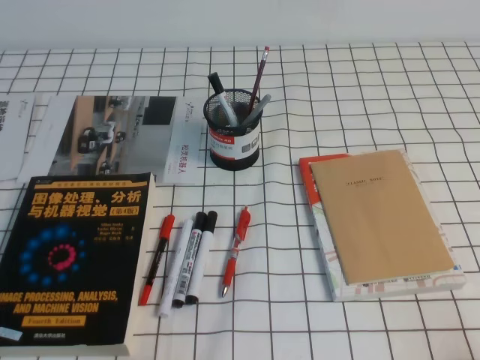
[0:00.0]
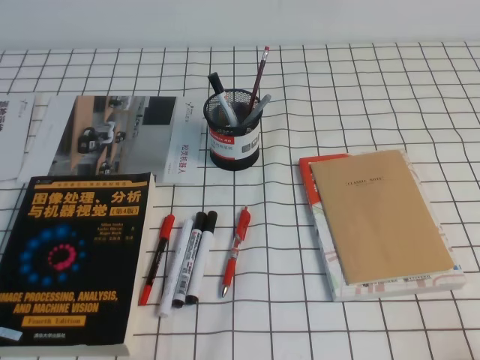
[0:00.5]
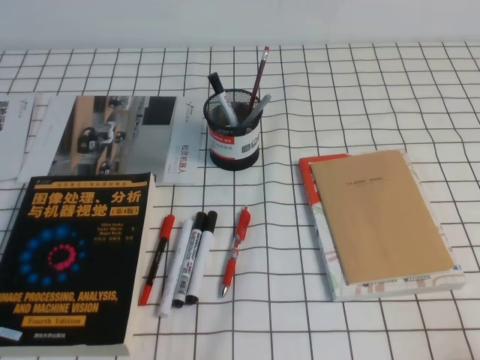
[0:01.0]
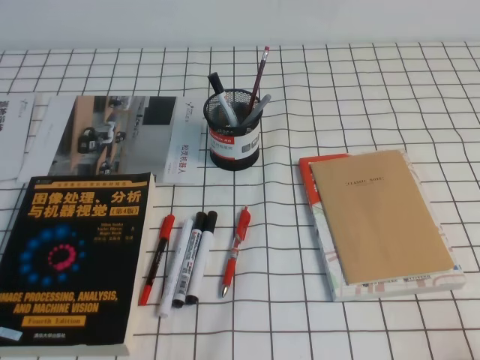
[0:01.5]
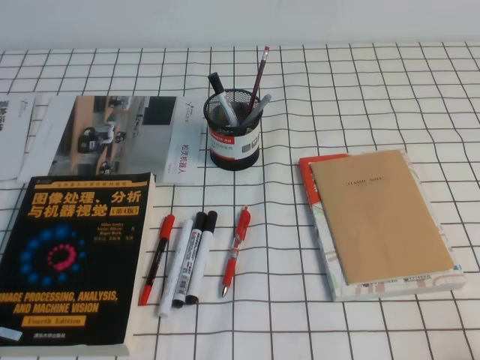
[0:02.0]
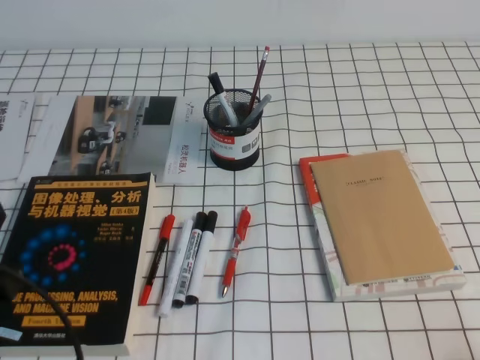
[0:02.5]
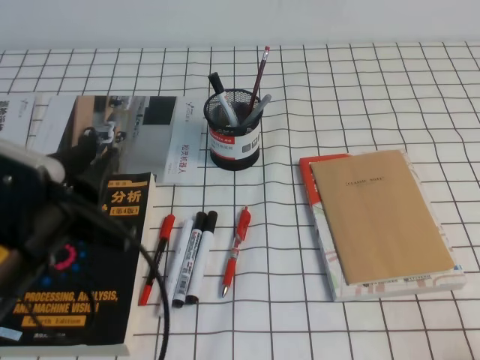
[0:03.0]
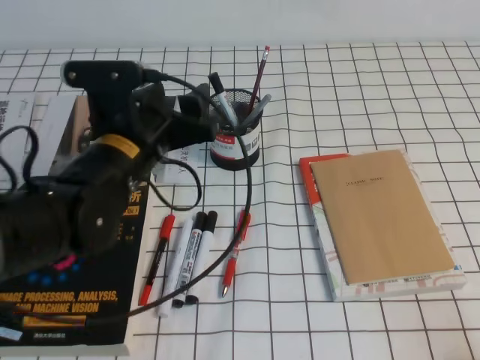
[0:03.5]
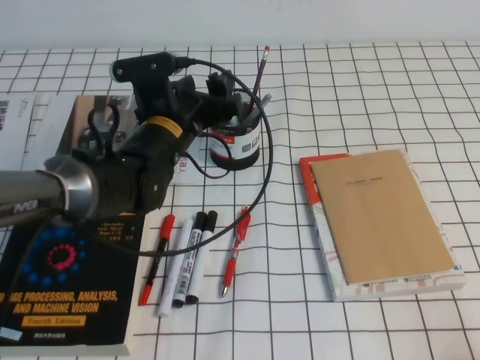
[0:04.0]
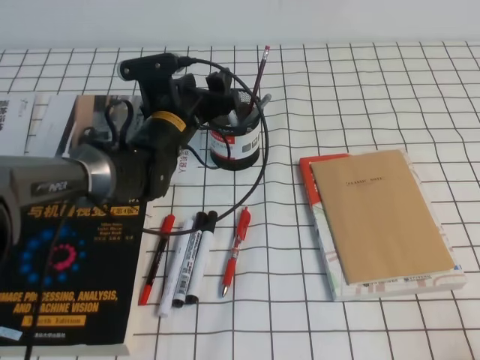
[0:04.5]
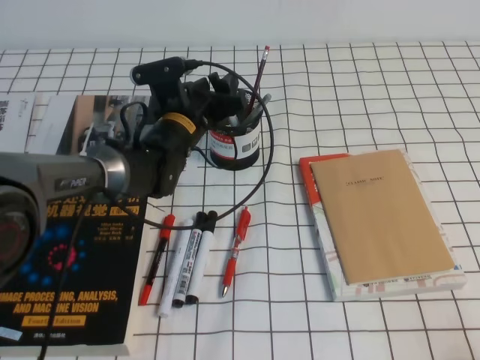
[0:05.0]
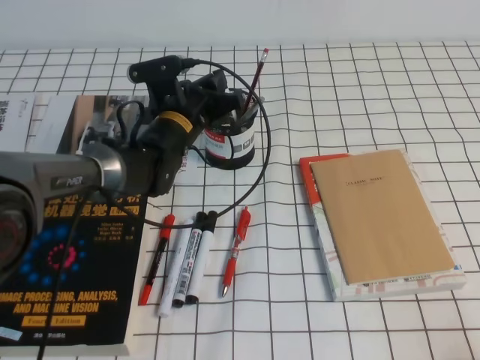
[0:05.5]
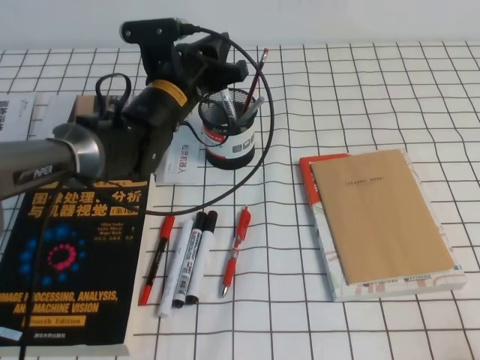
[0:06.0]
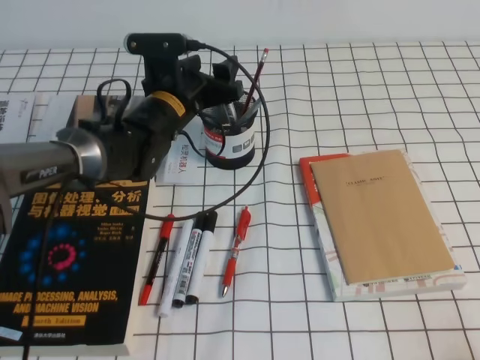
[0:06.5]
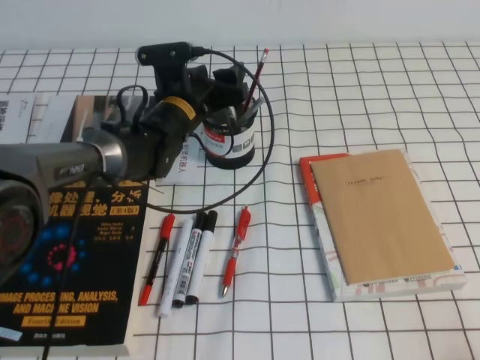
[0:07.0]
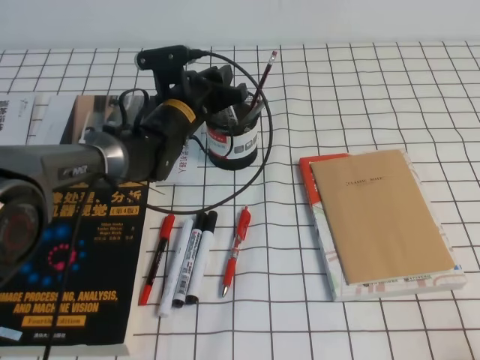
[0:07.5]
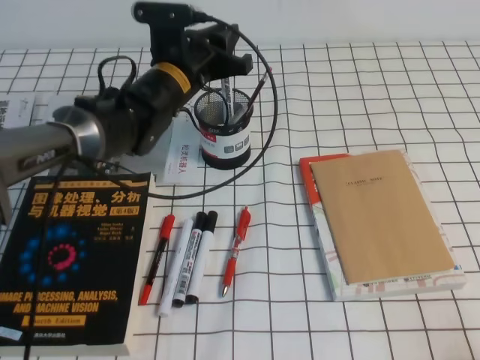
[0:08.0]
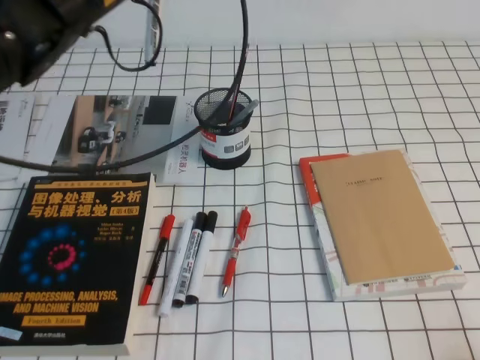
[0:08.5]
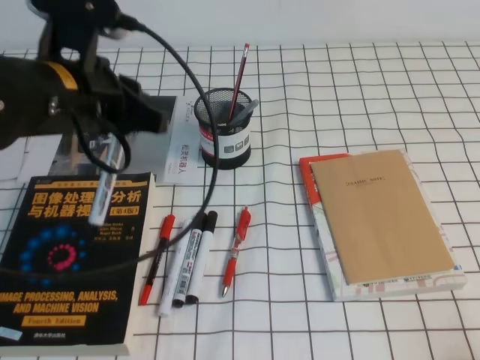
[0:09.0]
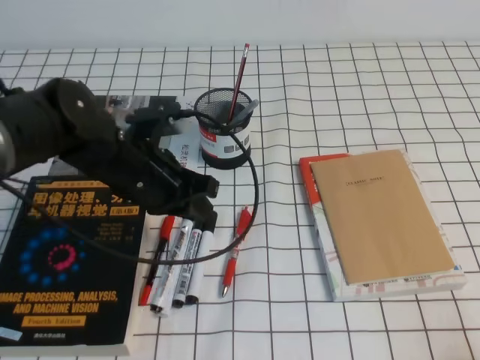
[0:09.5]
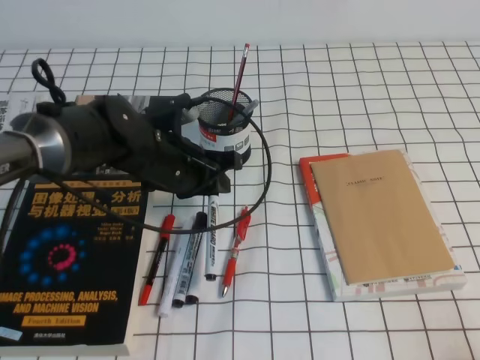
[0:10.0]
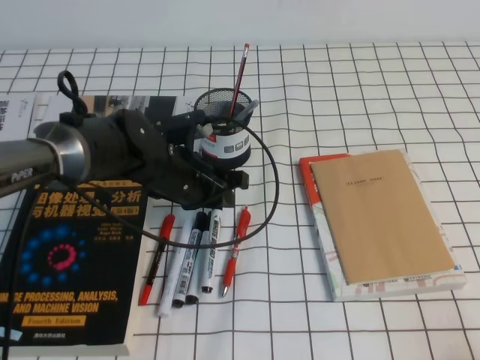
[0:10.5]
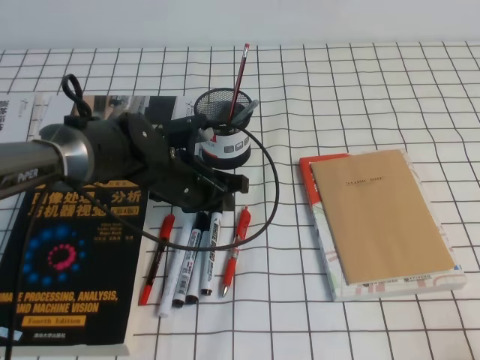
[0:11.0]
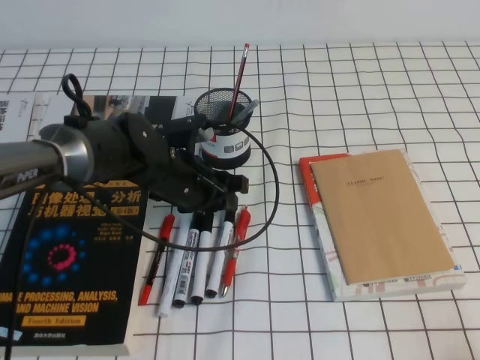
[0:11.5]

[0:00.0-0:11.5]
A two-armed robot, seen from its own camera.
0:02.0 to 0:04.0: The left gripper goes about 35 cm forward and to the right, and opens its fingers.
0:04.0 to 0:06.0: The left gripper is displaced forward by about 5 cm, and closes up.
0:06.0 to 0:07.5: The left gripper ends up about 5 cm from where it was, and opens, then closes once more.
0:07.5 to 0:09.5: The left gripper moves backward, roughly 15 cm, and travels upward and back again, approximately 20 cm each way.
0:09.5 to 0:11.5: The left gripper travels downward by about 5 cm.

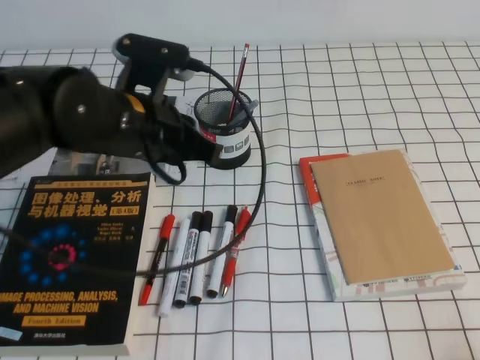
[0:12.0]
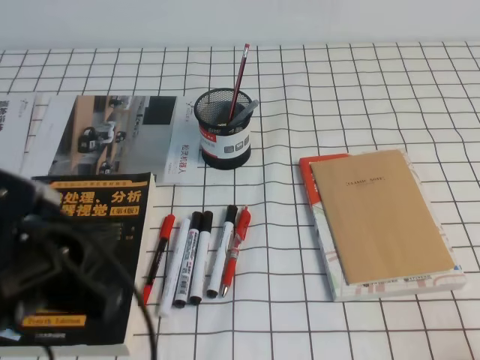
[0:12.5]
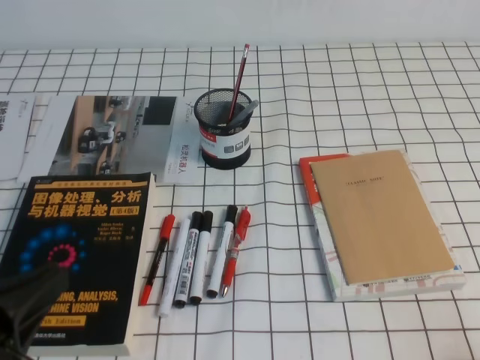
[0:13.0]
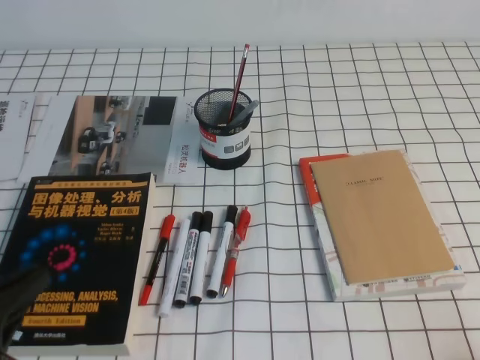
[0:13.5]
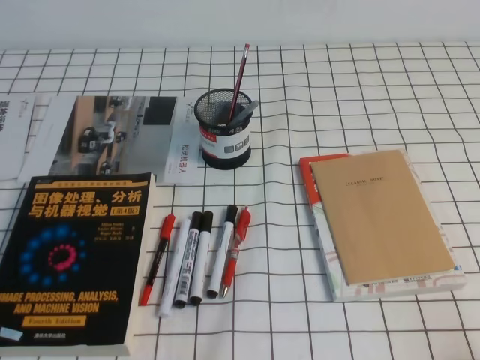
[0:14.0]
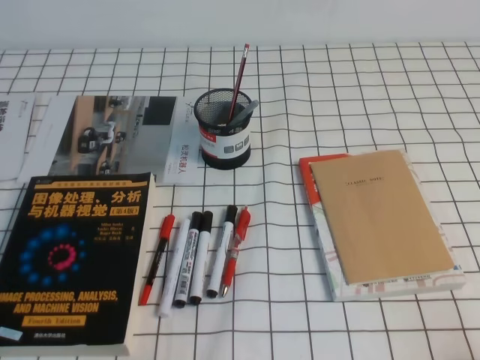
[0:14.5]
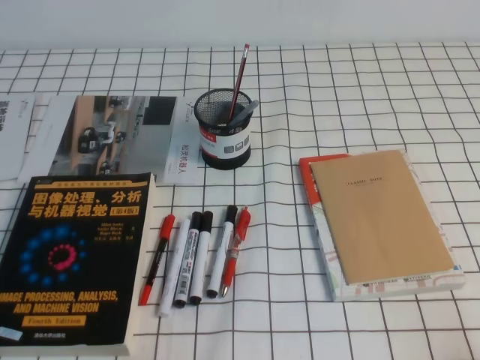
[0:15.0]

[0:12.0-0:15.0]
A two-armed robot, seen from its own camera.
Step, 0:12.0 to 0:15.0: Pick up the pen from the pen holder.
0:12.0 to 0:13.5: The left gripper is displaced backward and to the left by about 25 cm.

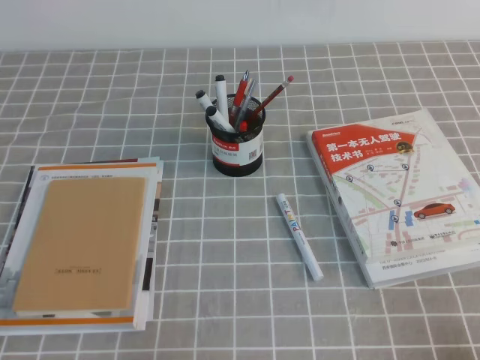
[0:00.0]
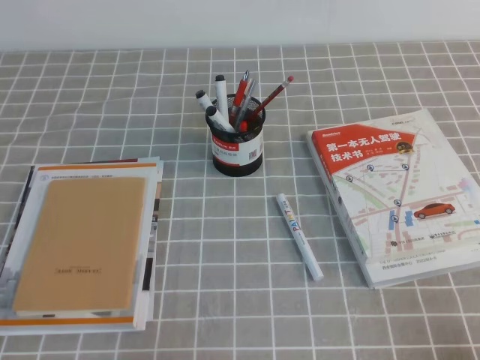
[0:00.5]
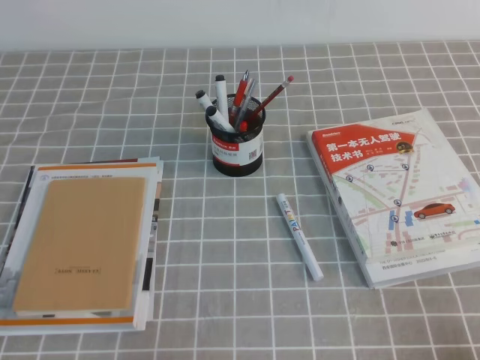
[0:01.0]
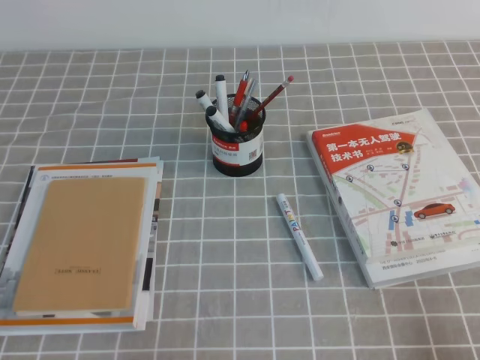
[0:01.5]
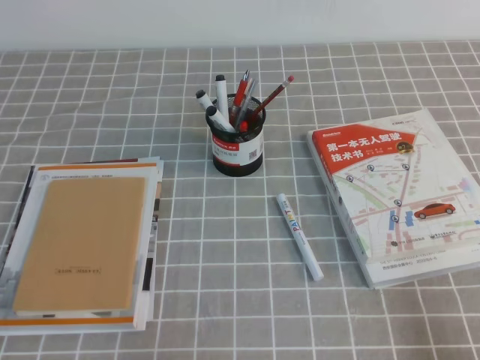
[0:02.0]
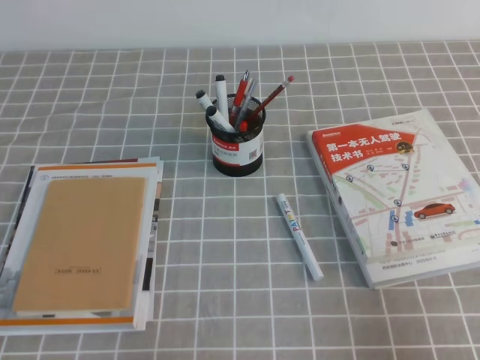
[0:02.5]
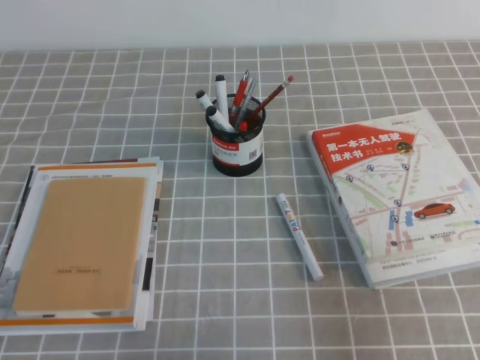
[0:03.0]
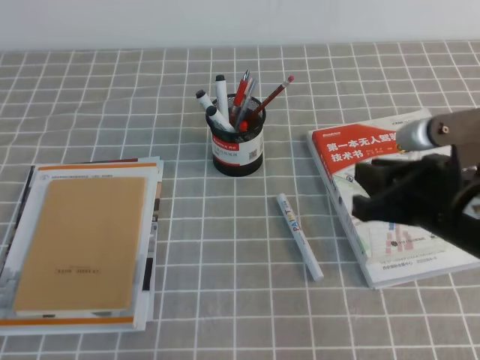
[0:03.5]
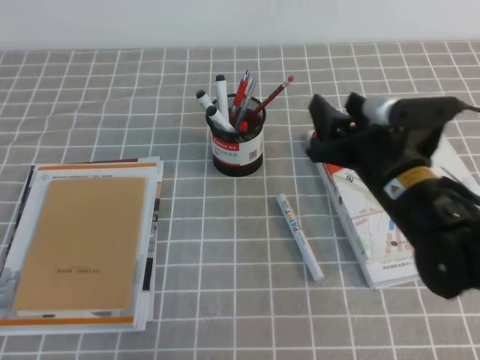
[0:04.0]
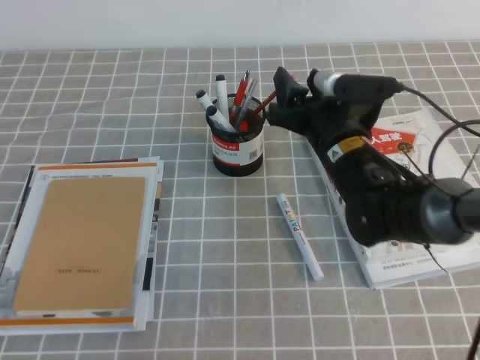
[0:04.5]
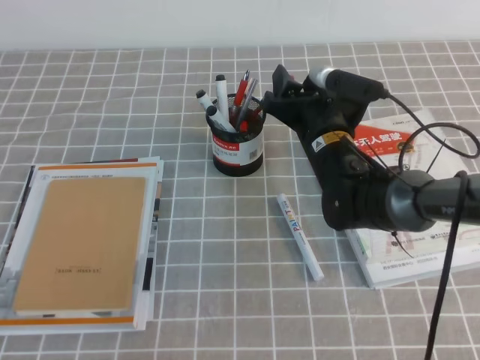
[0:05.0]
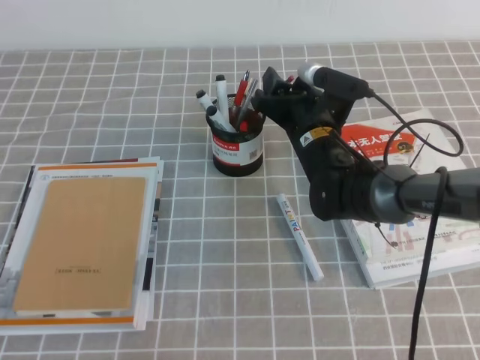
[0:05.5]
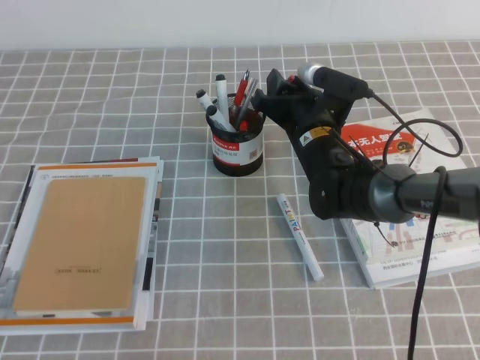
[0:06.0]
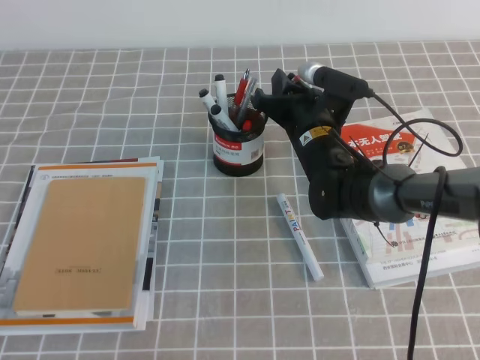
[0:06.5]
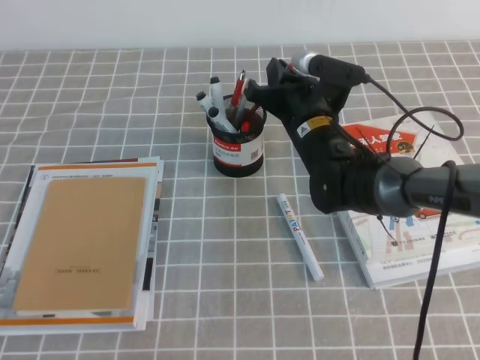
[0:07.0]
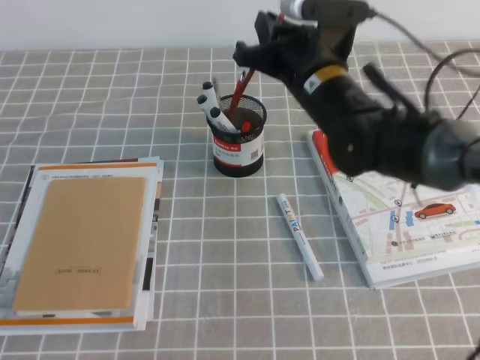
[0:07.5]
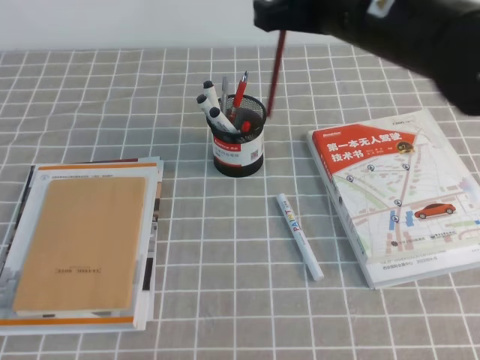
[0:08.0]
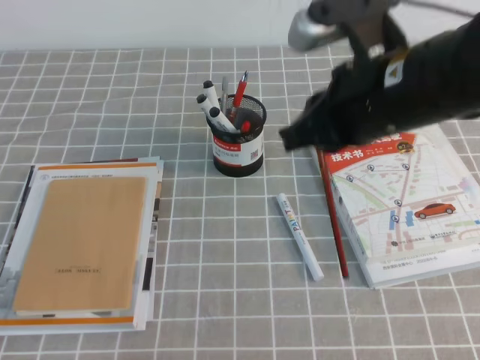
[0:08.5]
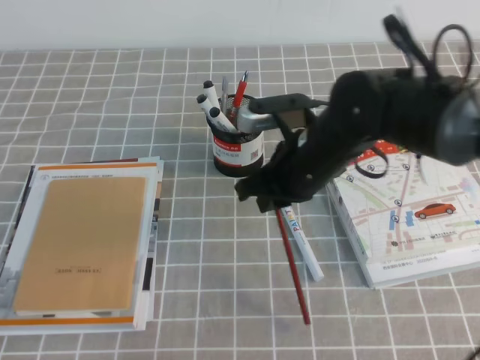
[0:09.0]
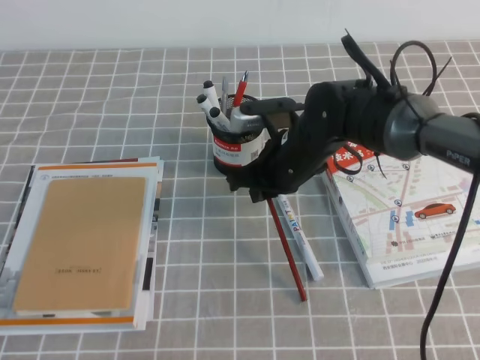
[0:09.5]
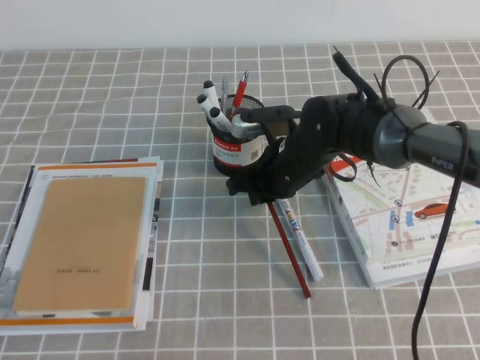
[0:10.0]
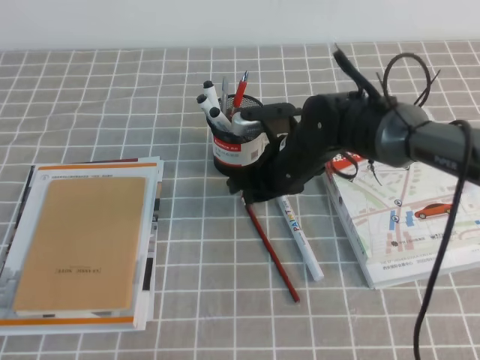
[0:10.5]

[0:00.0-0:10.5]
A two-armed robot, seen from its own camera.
0:02.0 to 0:04.0: The right gripper heads forward and to the left, covering roughly 30 cm, and opens up.
0:04.0 to 0:06.5: The right gripper is displaced forward, to the left and downward by about 15 cm, and closes.
0:06.5 to 0:08.5: The right gripper moves upward and backward, roughly 20 cm.
0:08.5 to 0:10.5: The right gripper moves downward and forward, approximately 20 cm, and opens up.

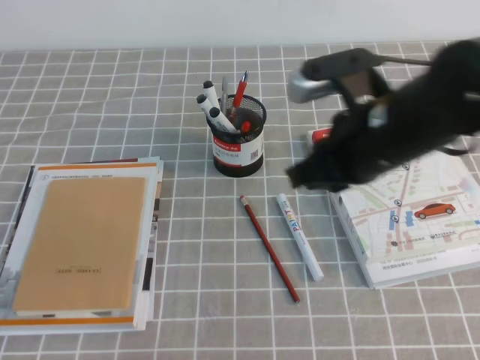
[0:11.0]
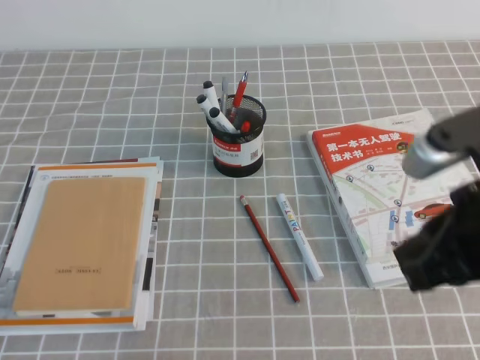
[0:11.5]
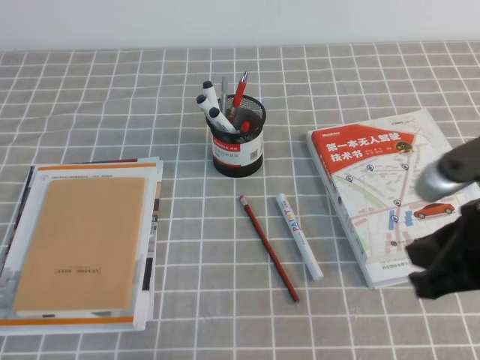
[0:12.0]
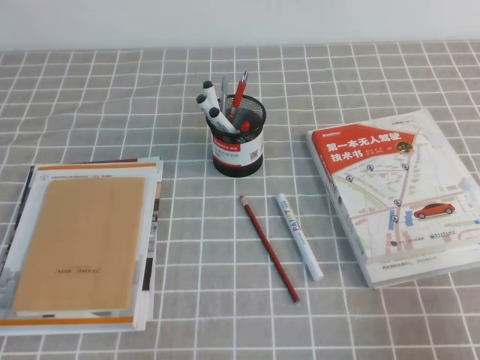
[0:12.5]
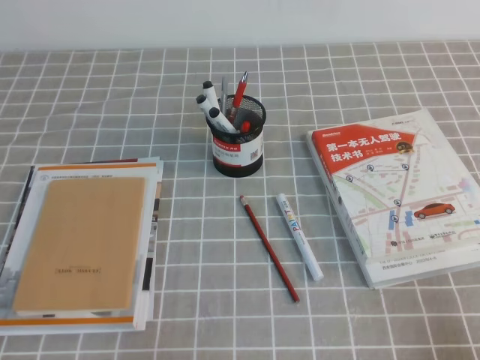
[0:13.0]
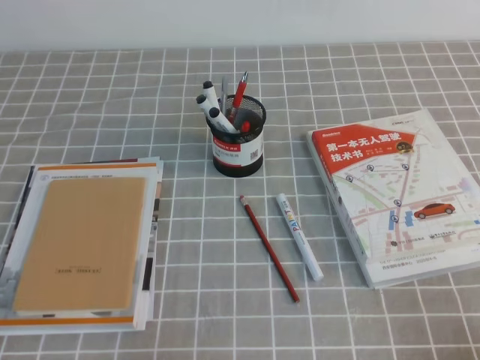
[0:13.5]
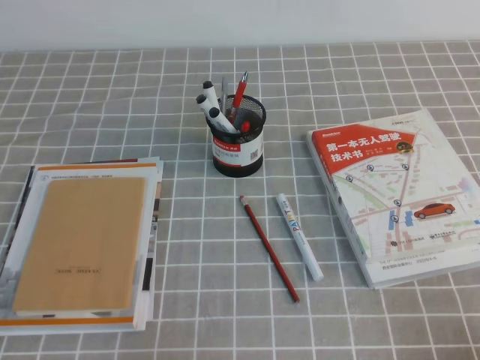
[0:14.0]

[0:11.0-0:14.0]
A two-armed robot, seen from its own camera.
Step, 0:11.0 to 0:14.0: Pick up the pen from the pen holder.
0:11.0 to 0:12.5: The right gripper goes about 25 cm to the right and backward.
